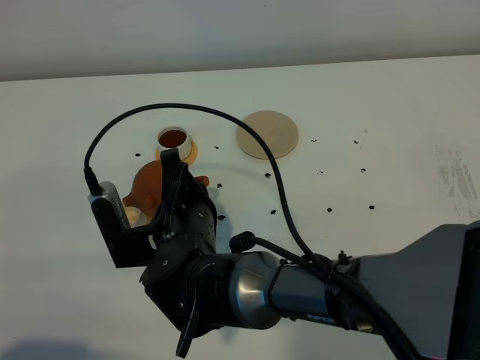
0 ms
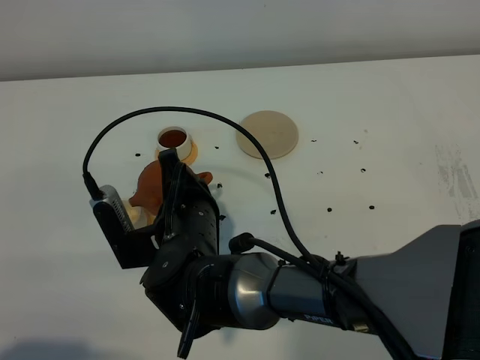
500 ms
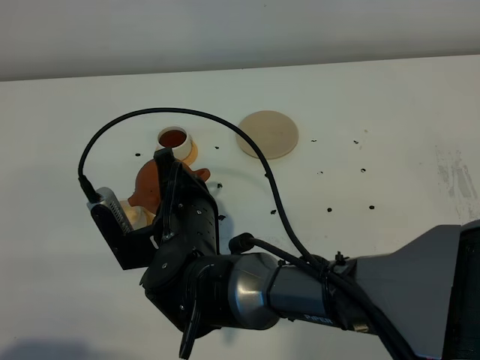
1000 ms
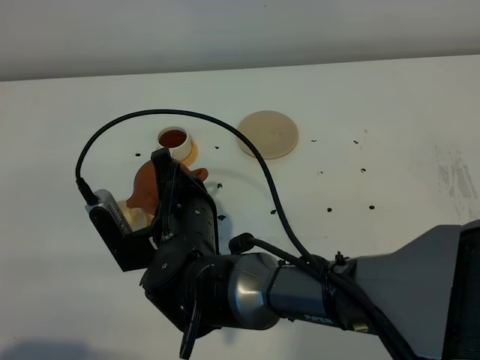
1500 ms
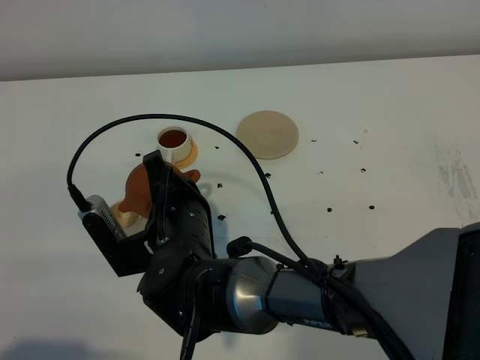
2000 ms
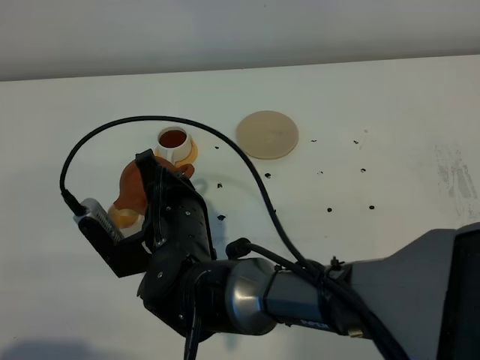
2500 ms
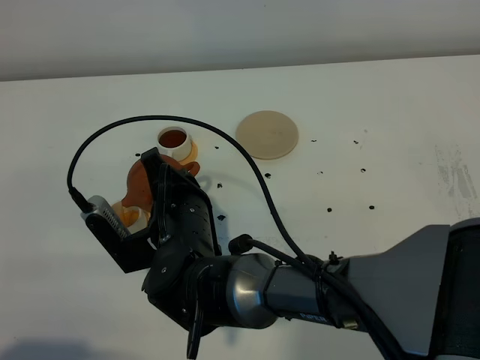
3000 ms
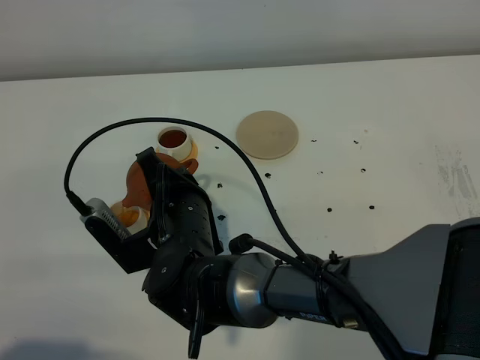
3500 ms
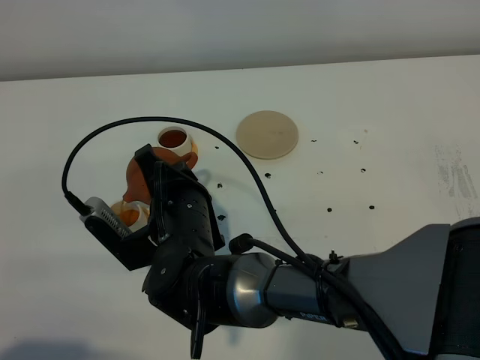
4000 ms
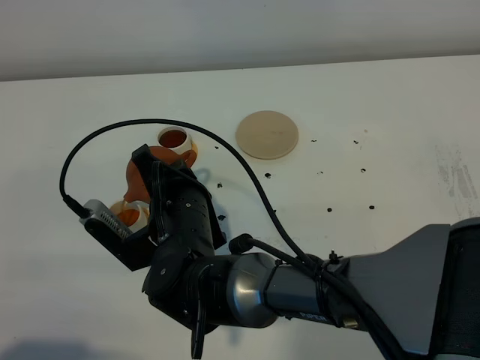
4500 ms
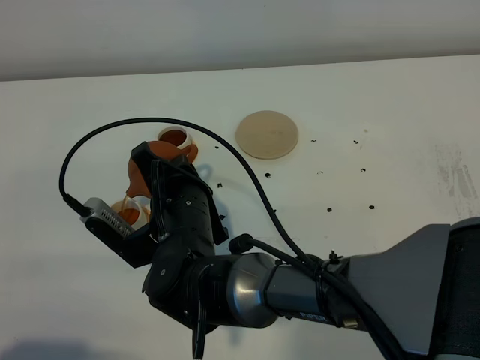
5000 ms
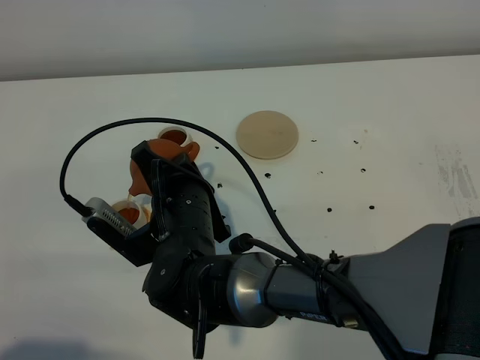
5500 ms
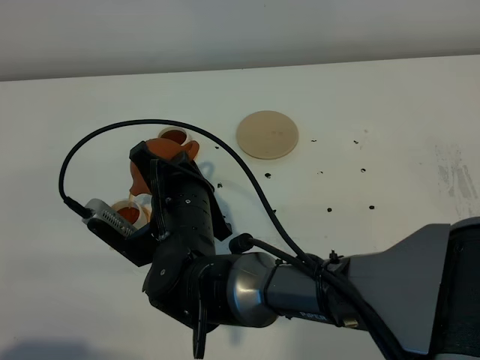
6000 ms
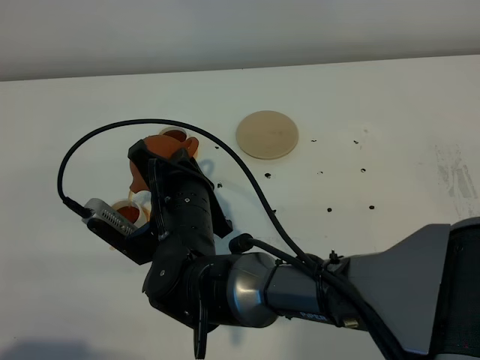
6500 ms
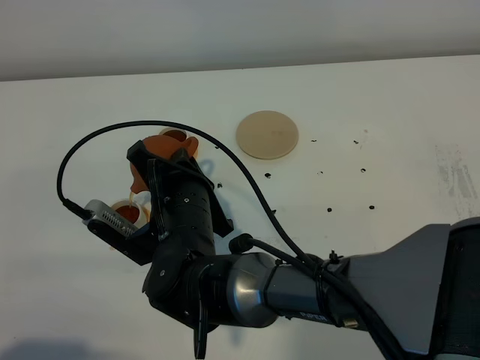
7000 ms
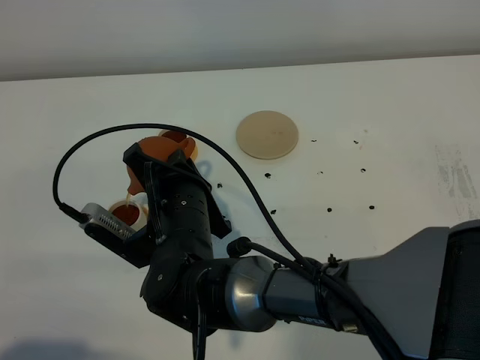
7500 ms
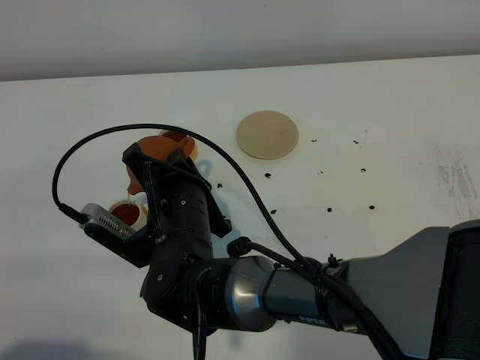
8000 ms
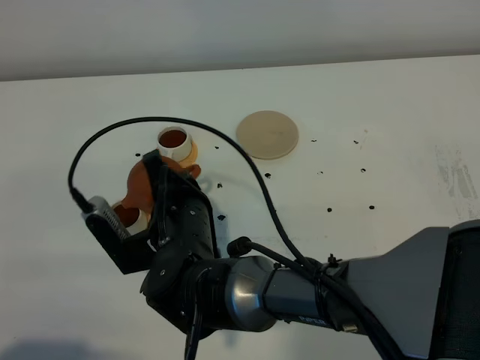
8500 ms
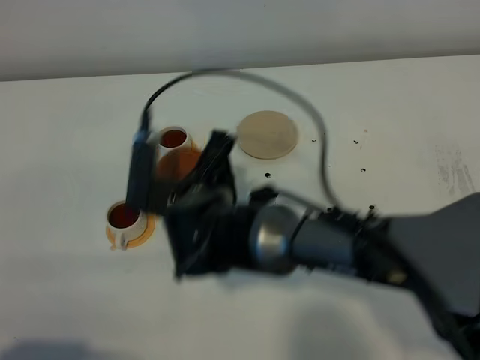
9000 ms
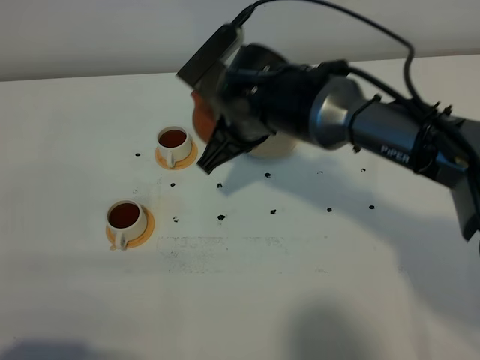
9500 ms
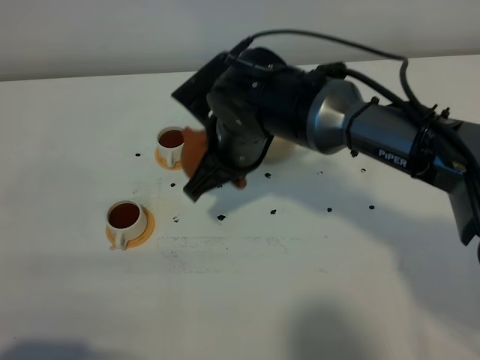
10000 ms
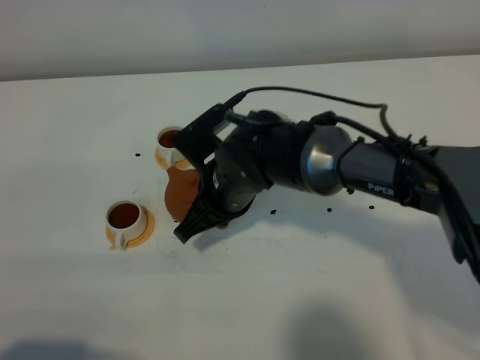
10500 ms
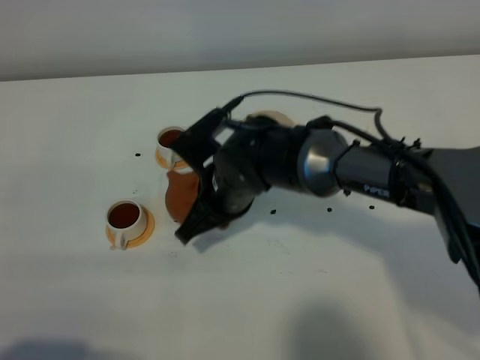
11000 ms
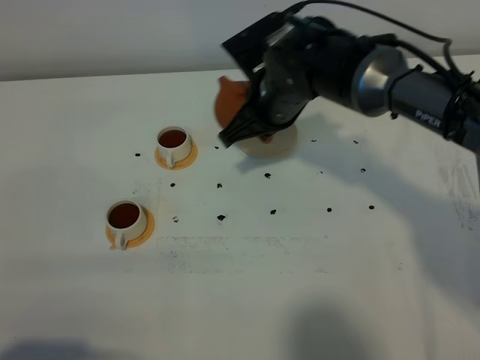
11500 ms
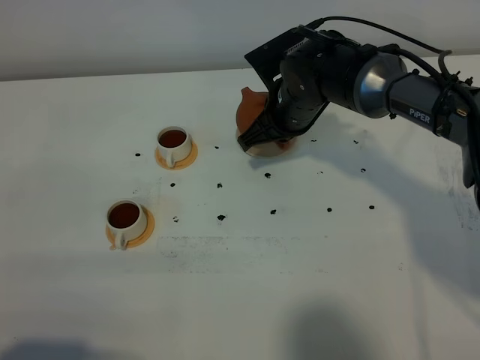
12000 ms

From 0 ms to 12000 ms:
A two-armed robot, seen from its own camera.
Task of the whole recording: grasp the brown teapot and pour the tea into the two white teacups one by one, put the brown teapot back in its original place.
Step, from 0 ms to 8500 ms: Pour tea into the teacup with the right gripper.
From 0 ms to 4000 ms: The grippers move only a little.
From 4000 ms to 6000 ms: The grippers make only small movements.
From 6000 ms to 8000 ms: Both grippers stay put.
From 8000 ms to 10000 ms: The right gripper travels forward, to the right and upward by approximately 10 cm.
From 10000 ms to 12000 ms: The right gripper travels to the right and forward by approximately 10 cm.

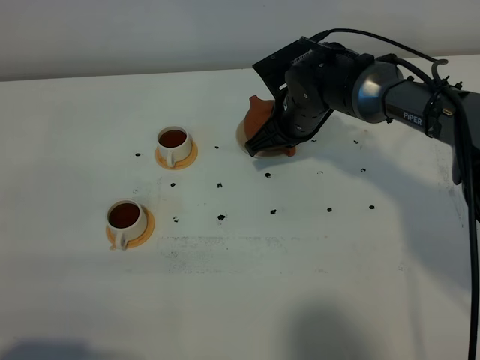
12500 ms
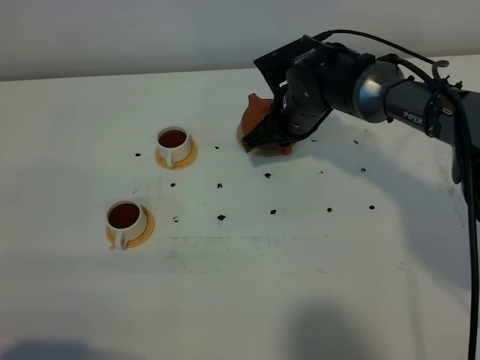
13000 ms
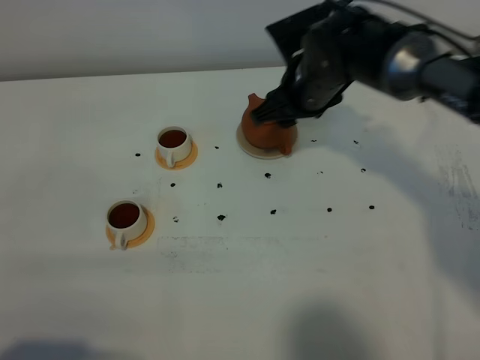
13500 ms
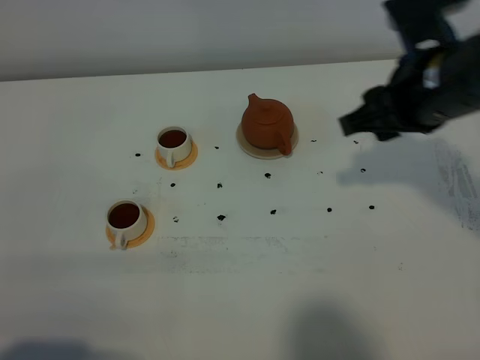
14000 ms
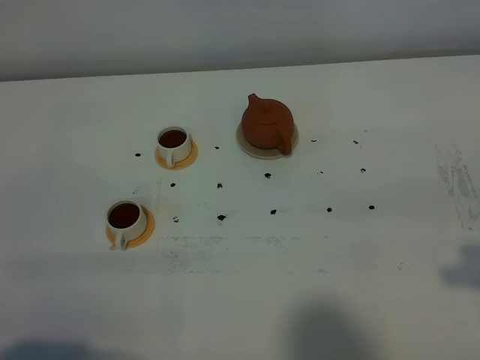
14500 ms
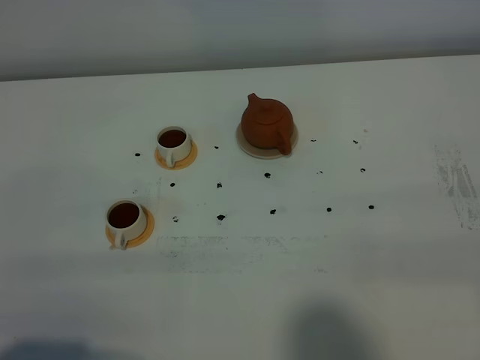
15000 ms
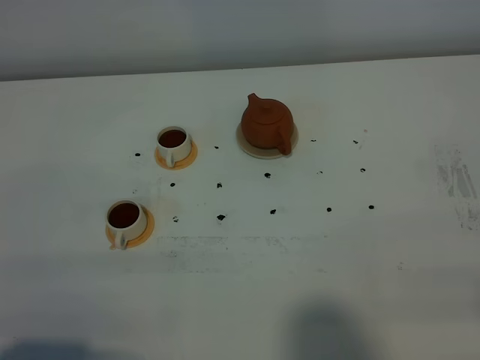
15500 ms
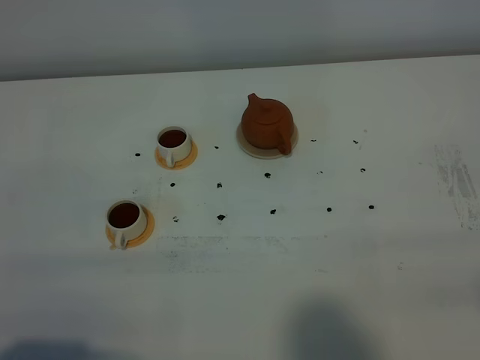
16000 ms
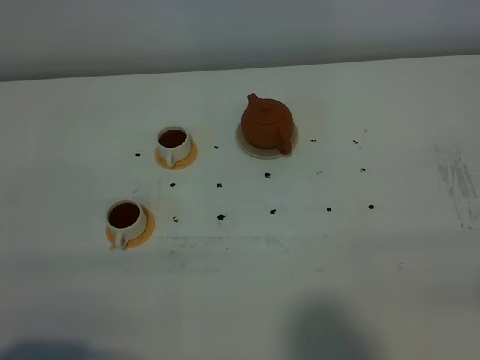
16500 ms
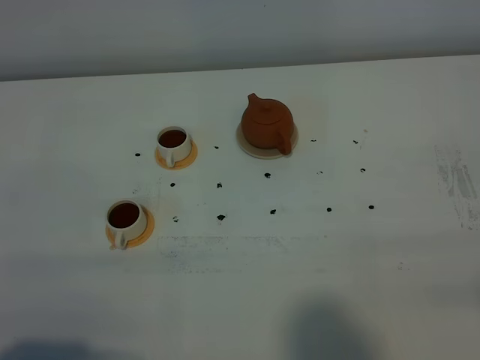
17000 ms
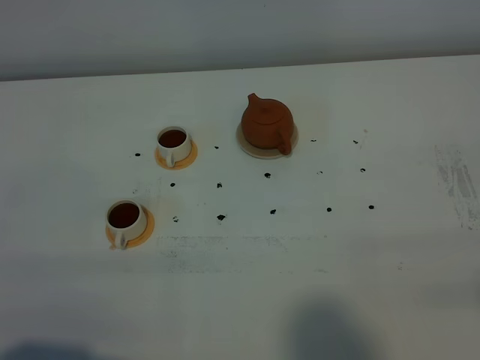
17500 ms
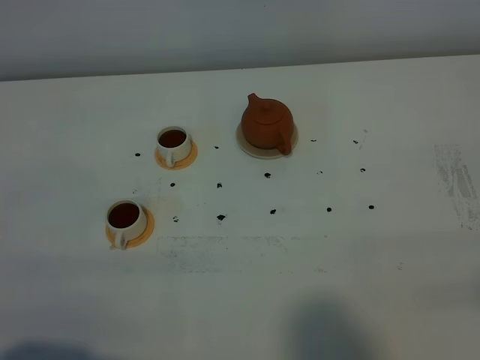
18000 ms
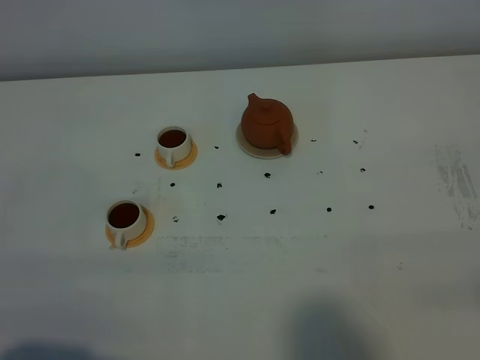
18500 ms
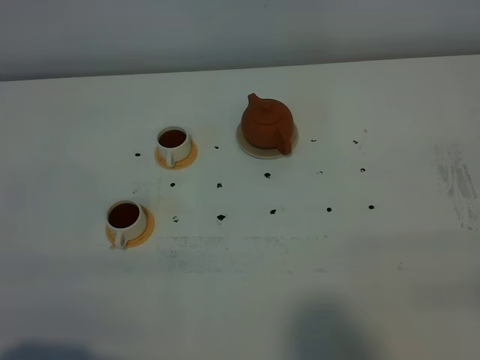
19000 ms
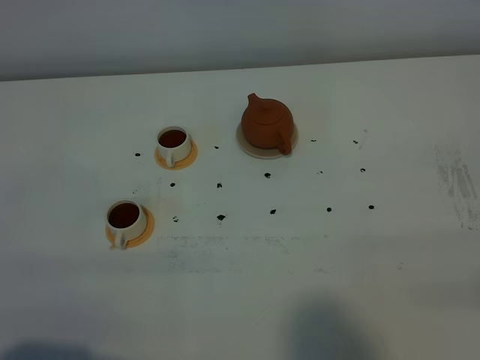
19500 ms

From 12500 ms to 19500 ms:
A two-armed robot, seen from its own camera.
Task of the whole recording: grasp the brown teapot and pour the tea into the two white teacups one by one, put the brown teapot back in its original place.
From 12500 ms to 14500 ms: The right gripper is displaced backward, upward and to the right by roughly 40 cm, and opens its fingers.
From 16000 ms to 19500 ms: Both grippers stay put.
